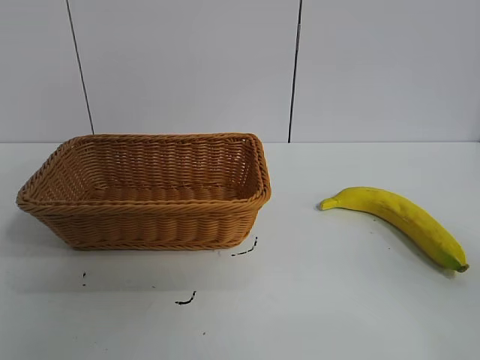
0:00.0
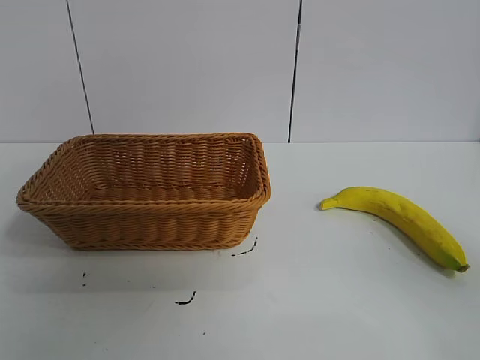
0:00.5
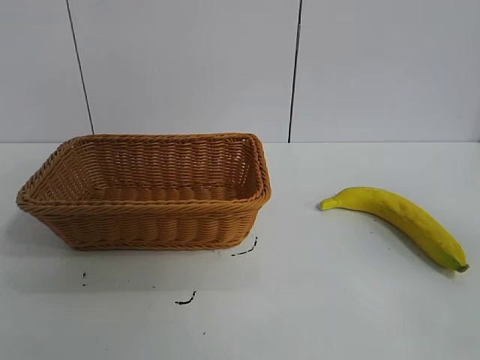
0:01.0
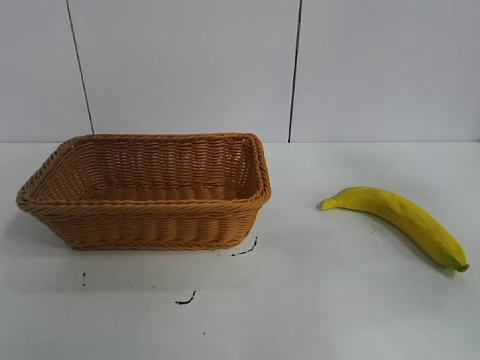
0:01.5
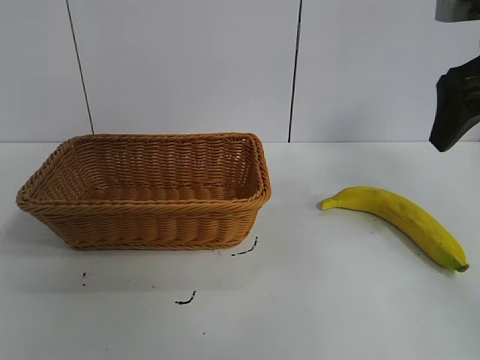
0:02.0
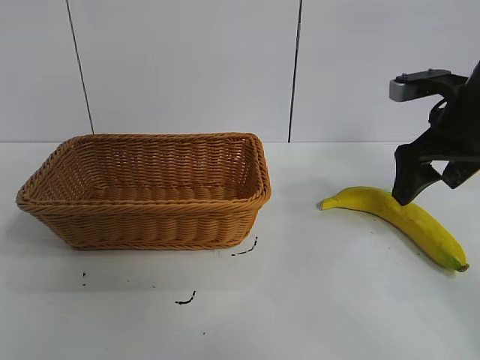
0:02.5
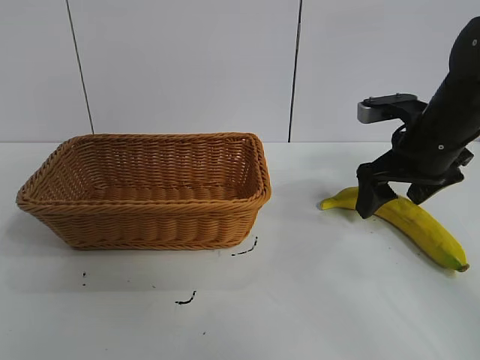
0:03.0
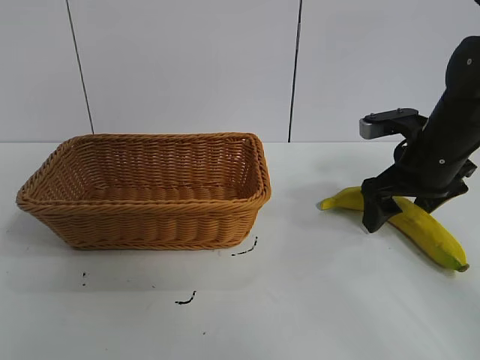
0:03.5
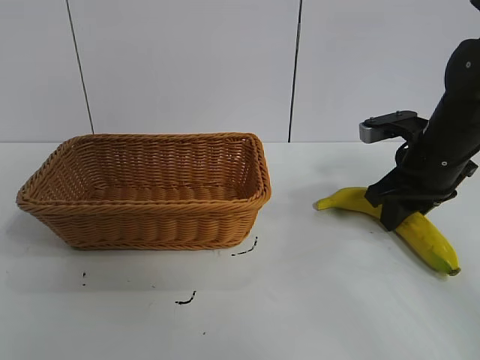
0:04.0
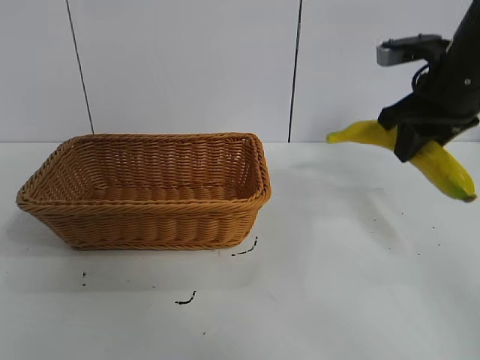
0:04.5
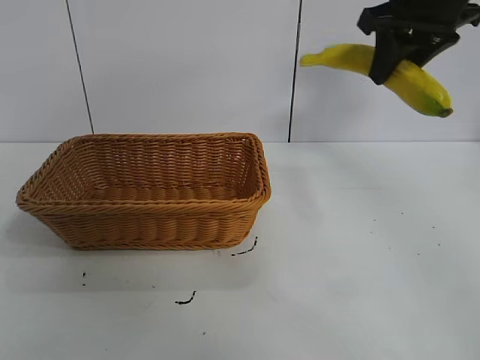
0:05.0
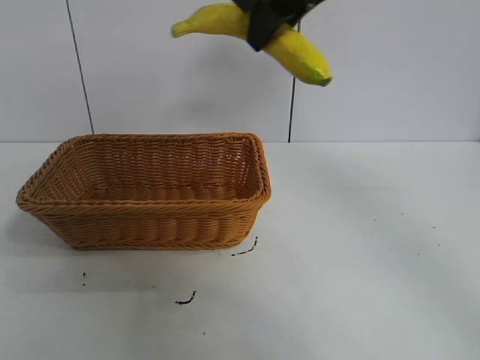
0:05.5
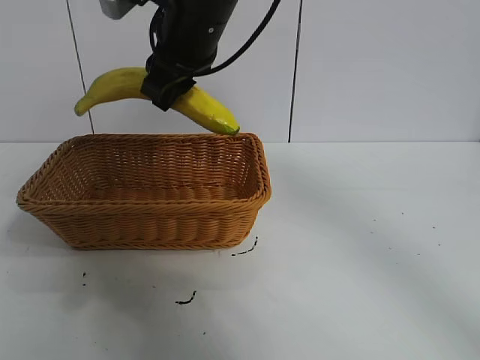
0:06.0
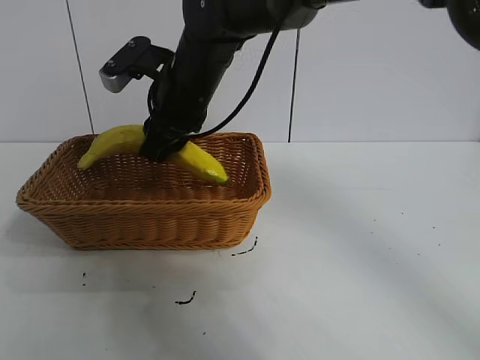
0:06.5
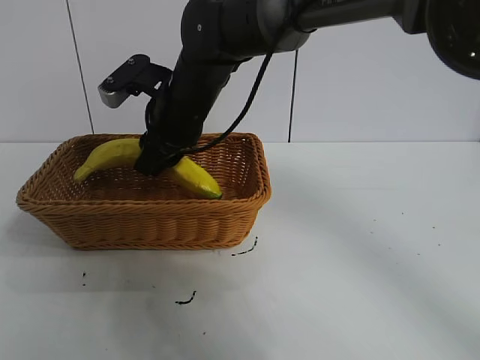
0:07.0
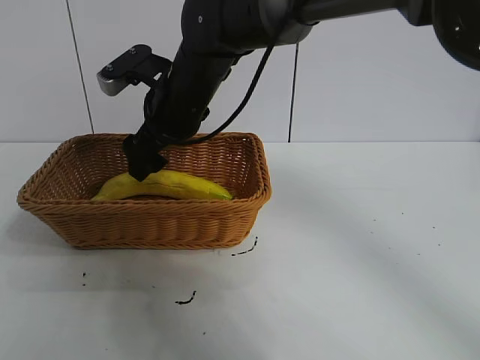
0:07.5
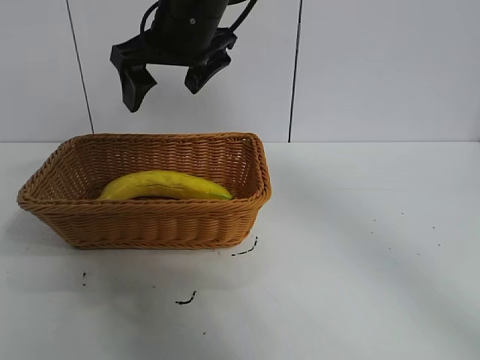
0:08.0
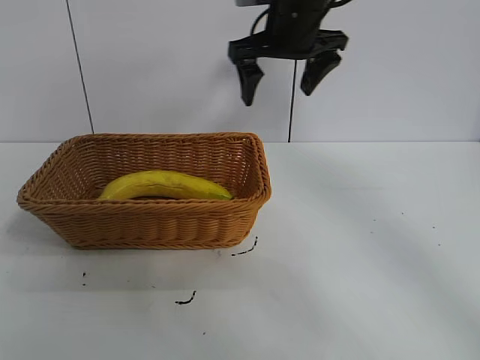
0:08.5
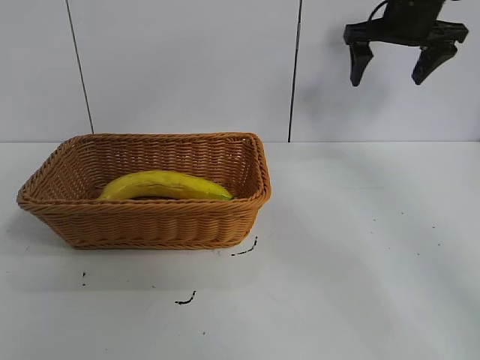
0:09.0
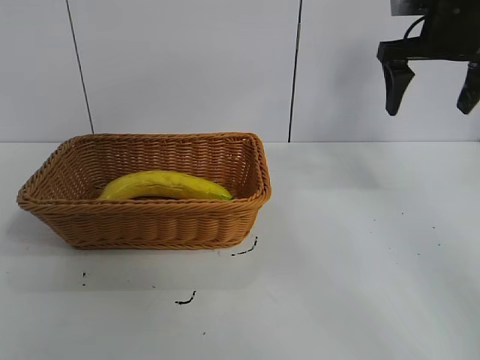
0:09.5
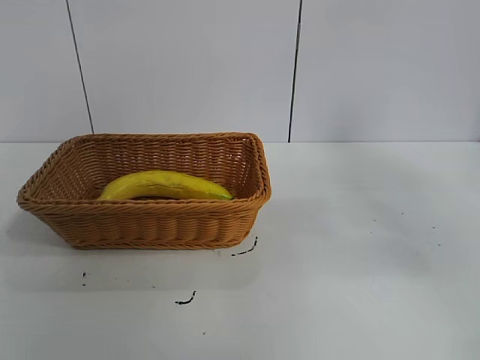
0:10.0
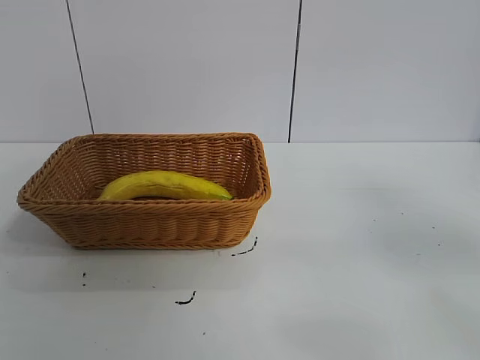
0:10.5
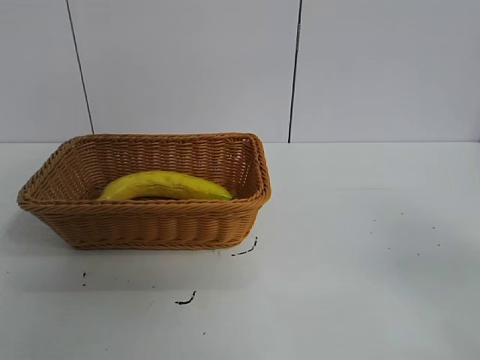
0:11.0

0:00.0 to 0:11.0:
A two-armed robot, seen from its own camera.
Task of the whole recording: pick up the banana and put it into the basket.
Step, 0:01.0 to 0:03.5: Grasp the banana with right gripper.
Step, 0:04.5 to 0:07.5: Place the banana in the basket with right gripper.
